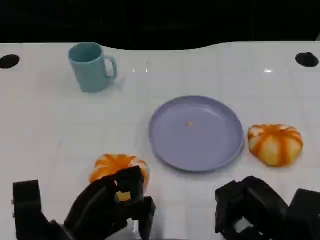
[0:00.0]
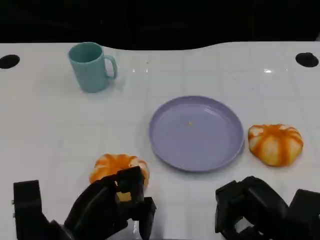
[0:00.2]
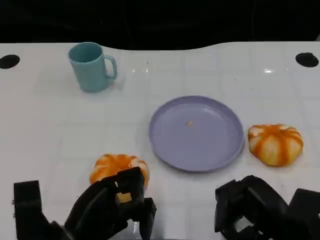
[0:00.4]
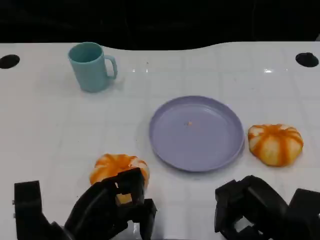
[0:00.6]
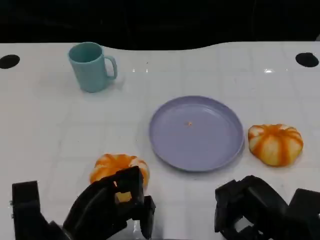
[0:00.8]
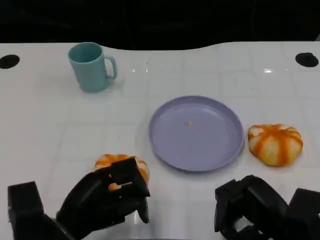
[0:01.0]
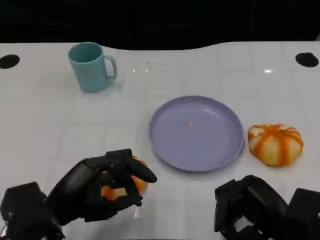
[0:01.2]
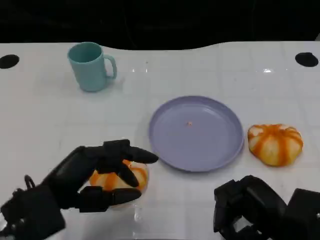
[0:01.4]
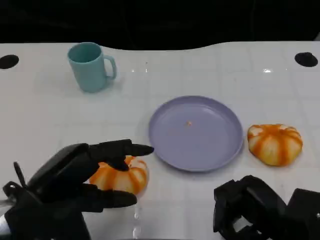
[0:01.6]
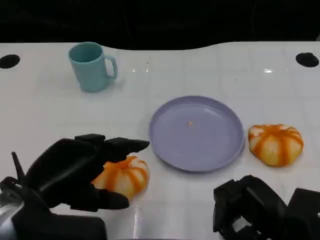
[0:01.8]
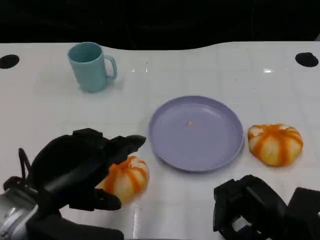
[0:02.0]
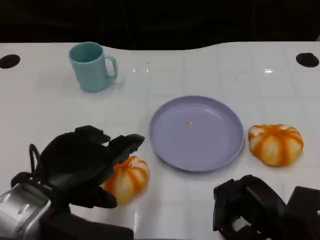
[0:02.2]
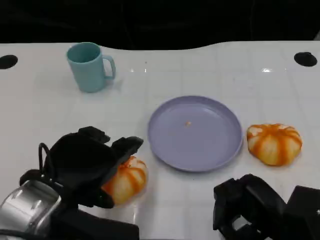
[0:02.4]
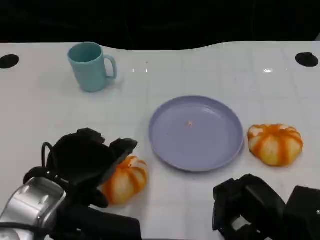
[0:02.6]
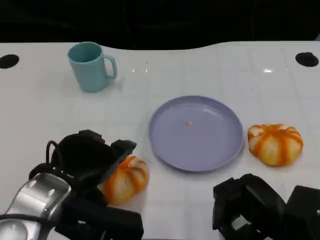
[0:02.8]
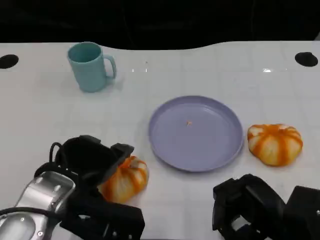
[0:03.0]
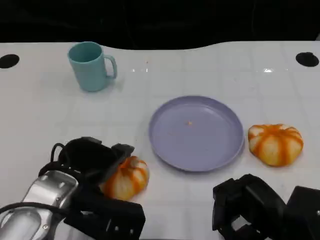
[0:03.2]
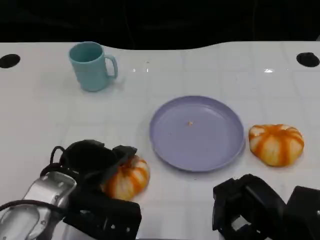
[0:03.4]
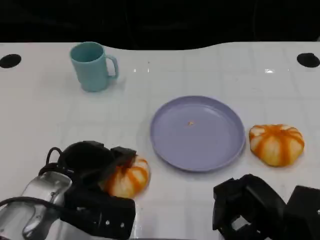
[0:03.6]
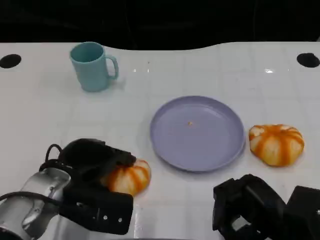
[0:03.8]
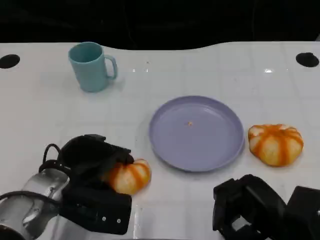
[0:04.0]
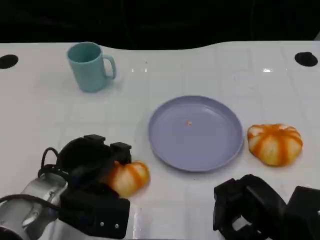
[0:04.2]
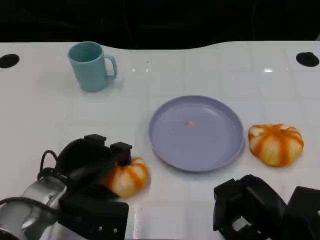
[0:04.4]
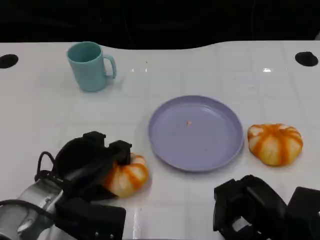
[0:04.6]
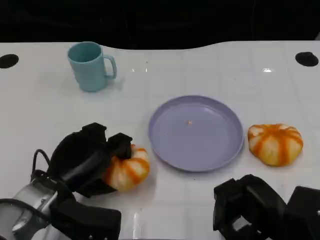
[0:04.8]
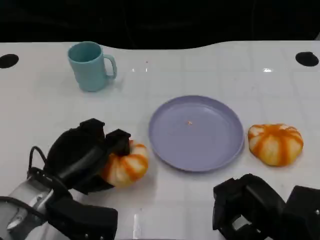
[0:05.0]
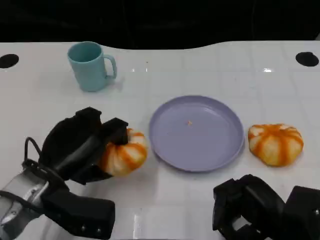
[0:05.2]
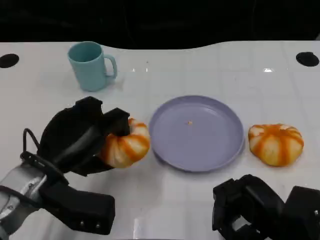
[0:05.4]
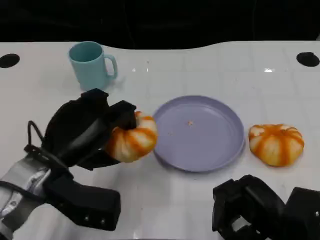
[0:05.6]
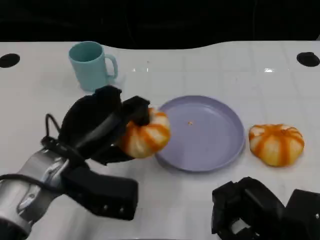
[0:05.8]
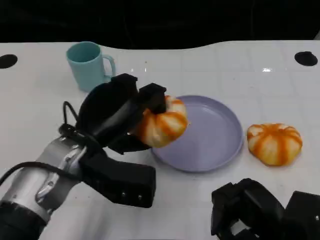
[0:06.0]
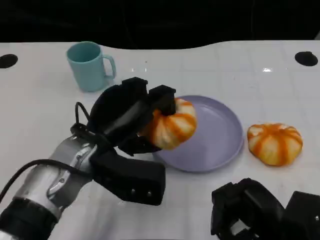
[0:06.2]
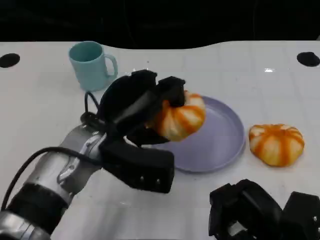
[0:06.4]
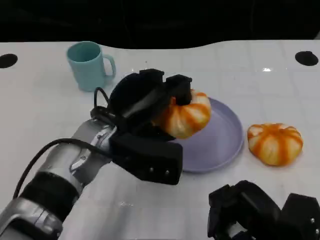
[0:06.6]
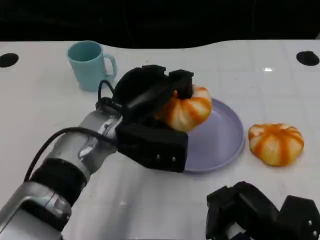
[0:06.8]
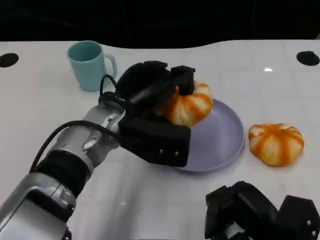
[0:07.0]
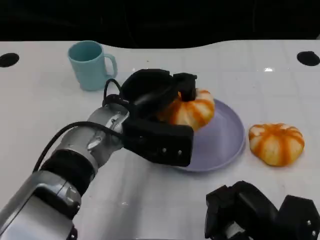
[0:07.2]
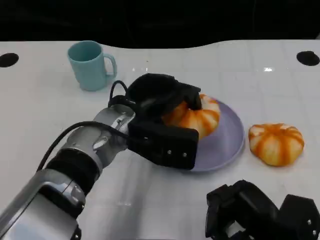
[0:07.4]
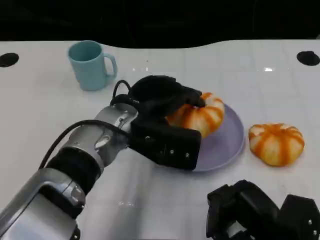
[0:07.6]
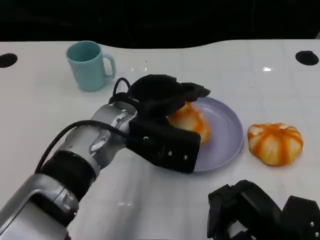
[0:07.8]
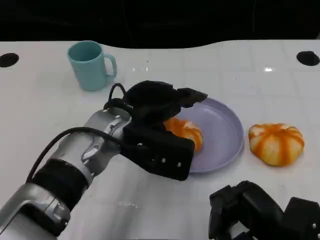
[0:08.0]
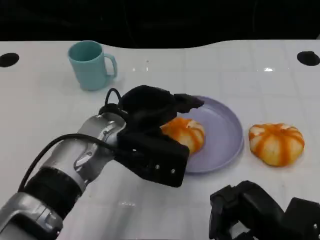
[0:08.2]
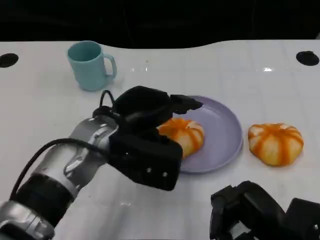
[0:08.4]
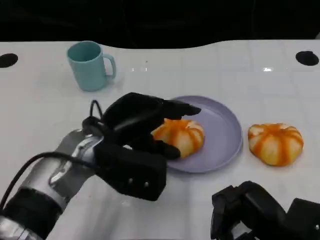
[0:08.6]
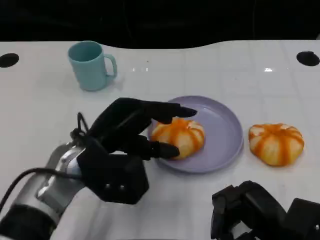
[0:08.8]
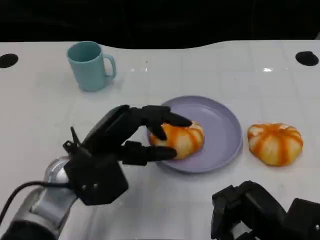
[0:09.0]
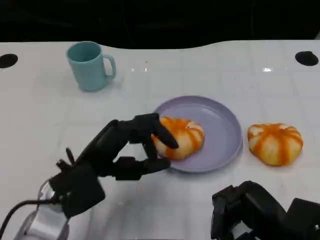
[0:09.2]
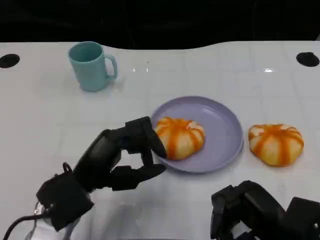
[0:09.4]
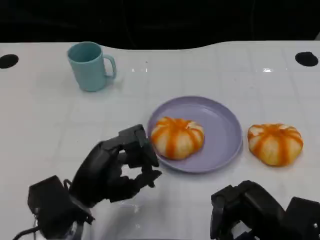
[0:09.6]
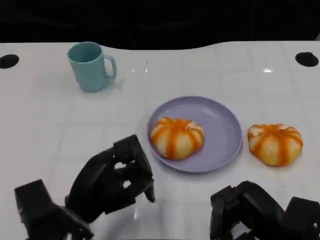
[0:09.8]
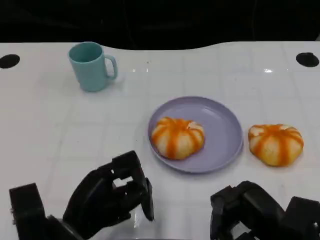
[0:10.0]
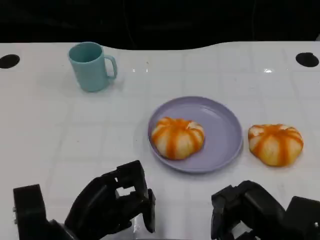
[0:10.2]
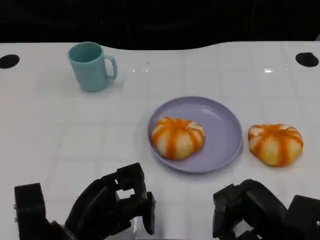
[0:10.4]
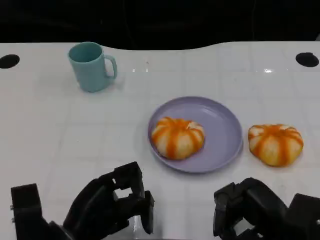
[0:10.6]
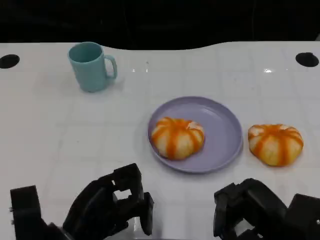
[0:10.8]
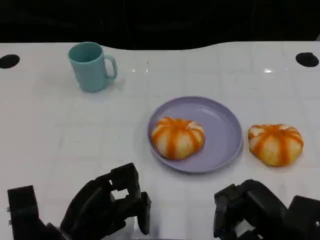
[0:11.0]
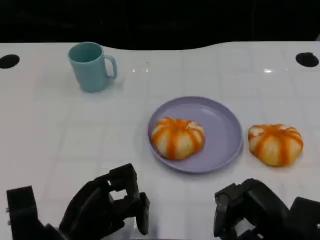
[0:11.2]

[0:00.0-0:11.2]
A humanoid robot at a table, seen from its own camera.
Task of the whole recording: Grasp the bread from the table and place it into the plate.
0:00.0 to 0:01.6: The left hand heads upward, covering some 10 cm.
0:01.6 to 0:03.2: The left hand shifts by roughly 5 cm.
0:04.8 to 0:06.4: The left hand heads to the right and upward, covering roughly 10 cm.
0:08.0 to 0:09.6: The left hand heads backward, to the left and downward, covering some 15 cm.

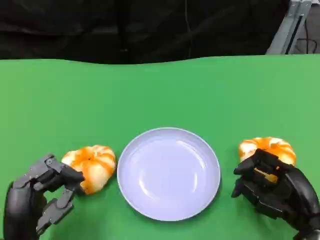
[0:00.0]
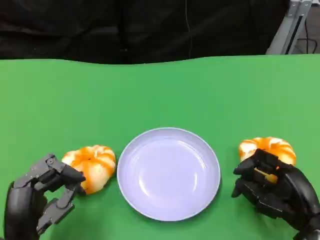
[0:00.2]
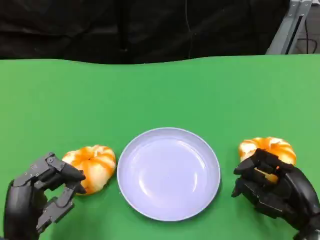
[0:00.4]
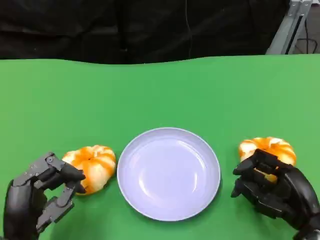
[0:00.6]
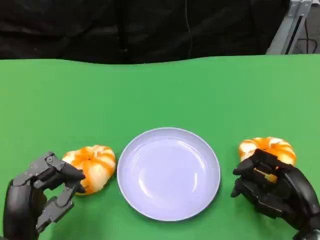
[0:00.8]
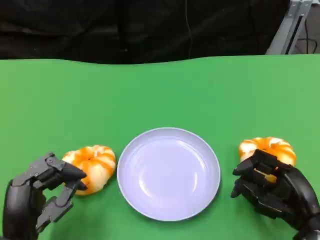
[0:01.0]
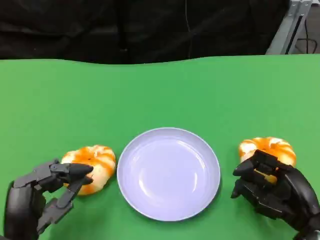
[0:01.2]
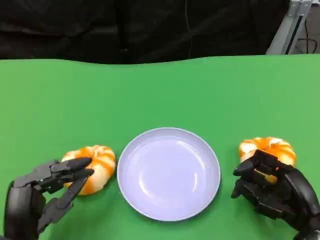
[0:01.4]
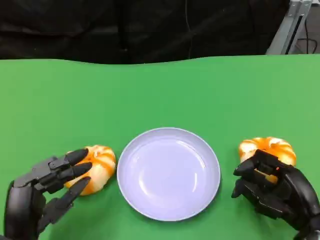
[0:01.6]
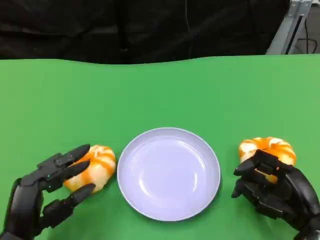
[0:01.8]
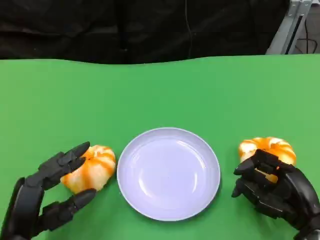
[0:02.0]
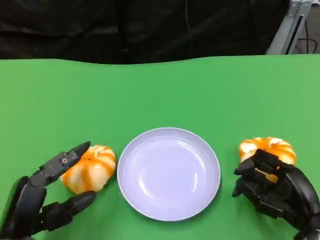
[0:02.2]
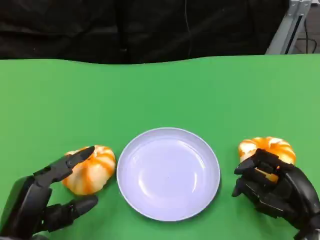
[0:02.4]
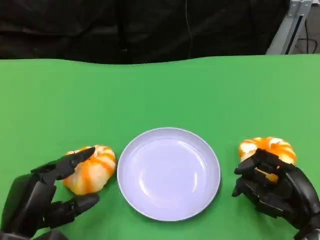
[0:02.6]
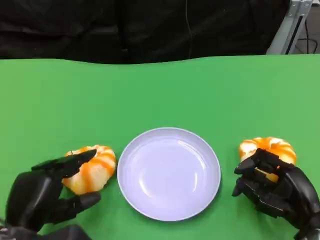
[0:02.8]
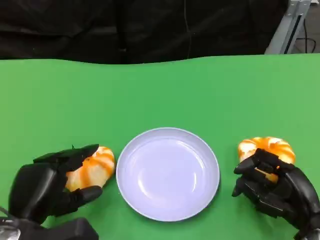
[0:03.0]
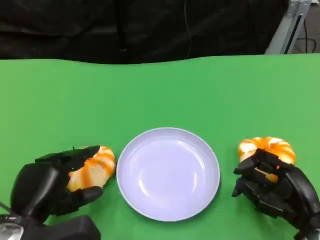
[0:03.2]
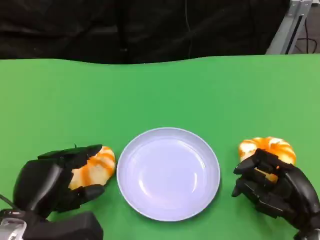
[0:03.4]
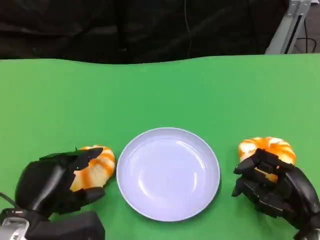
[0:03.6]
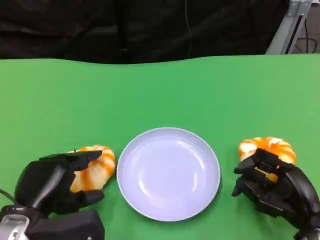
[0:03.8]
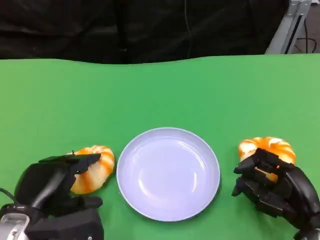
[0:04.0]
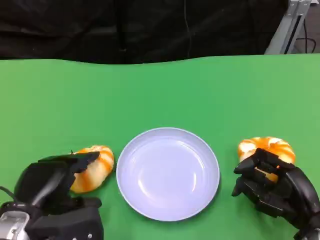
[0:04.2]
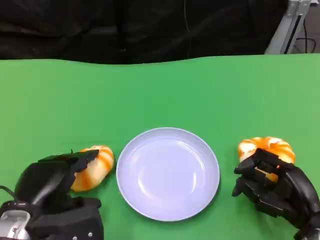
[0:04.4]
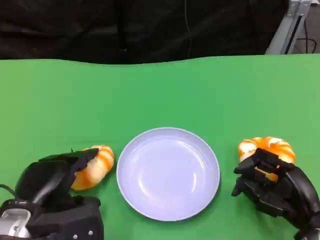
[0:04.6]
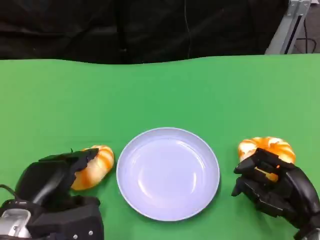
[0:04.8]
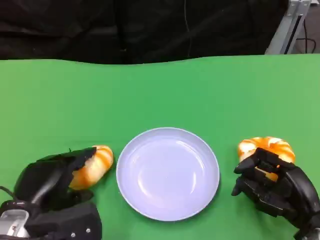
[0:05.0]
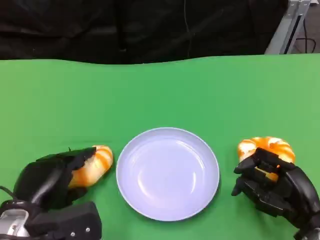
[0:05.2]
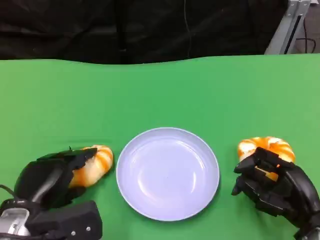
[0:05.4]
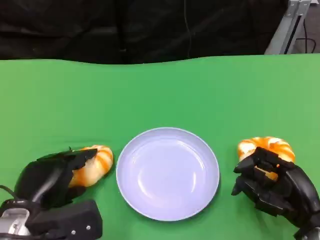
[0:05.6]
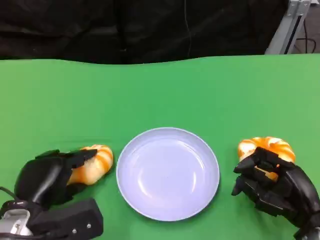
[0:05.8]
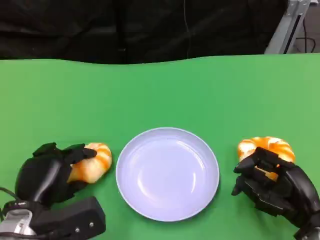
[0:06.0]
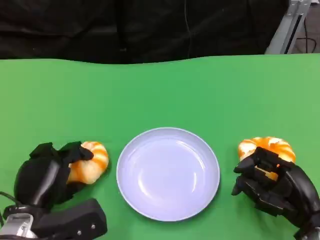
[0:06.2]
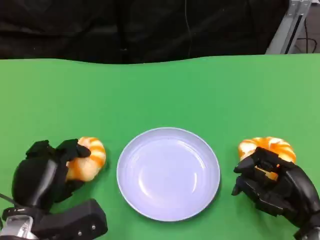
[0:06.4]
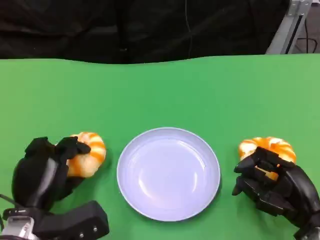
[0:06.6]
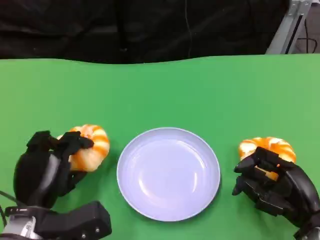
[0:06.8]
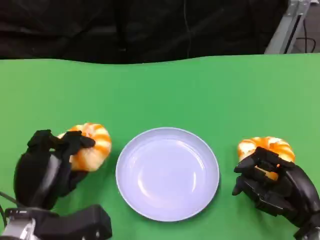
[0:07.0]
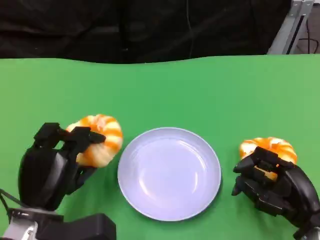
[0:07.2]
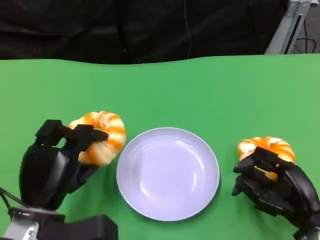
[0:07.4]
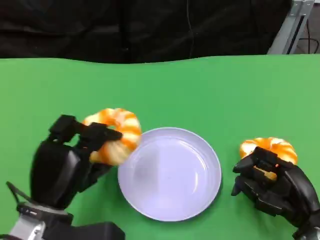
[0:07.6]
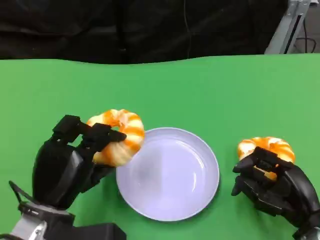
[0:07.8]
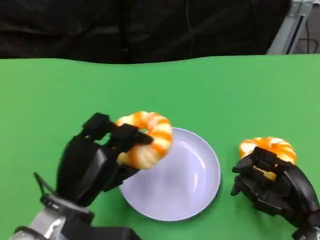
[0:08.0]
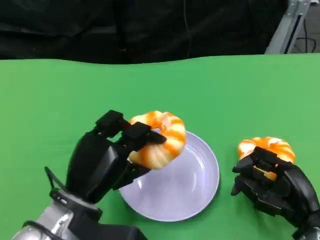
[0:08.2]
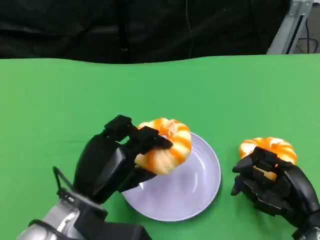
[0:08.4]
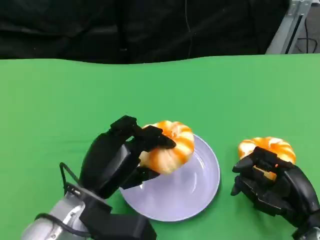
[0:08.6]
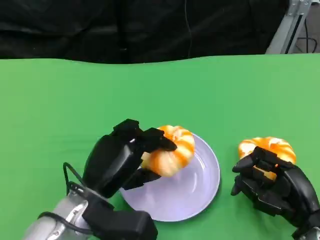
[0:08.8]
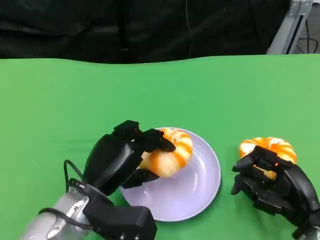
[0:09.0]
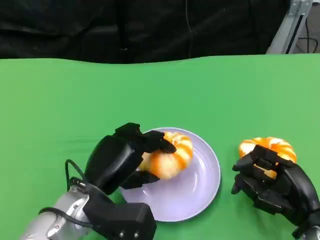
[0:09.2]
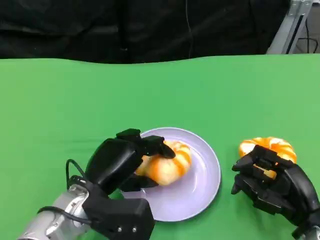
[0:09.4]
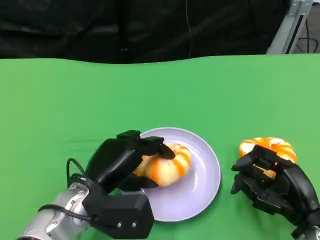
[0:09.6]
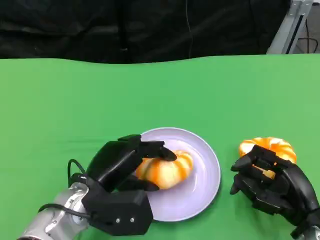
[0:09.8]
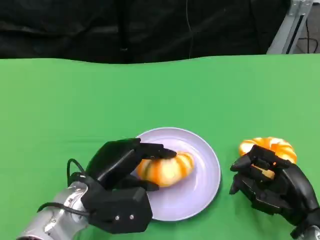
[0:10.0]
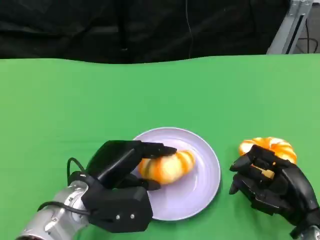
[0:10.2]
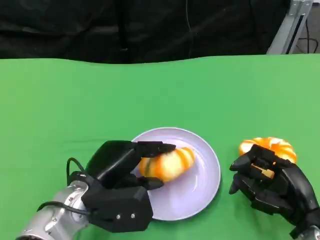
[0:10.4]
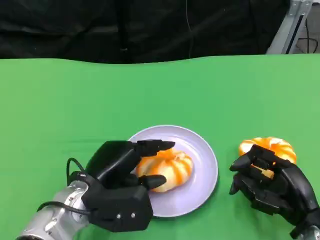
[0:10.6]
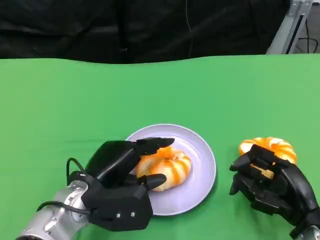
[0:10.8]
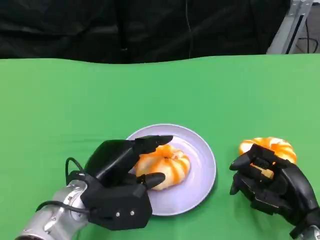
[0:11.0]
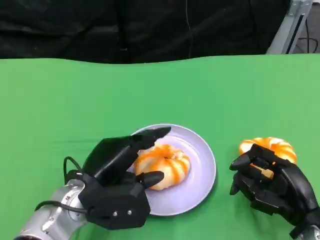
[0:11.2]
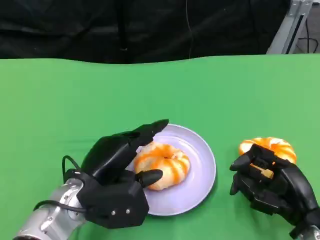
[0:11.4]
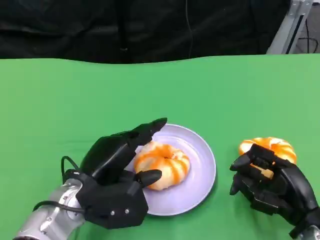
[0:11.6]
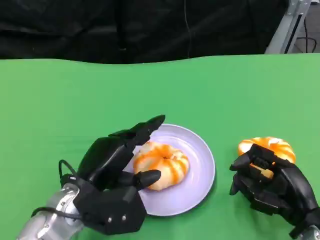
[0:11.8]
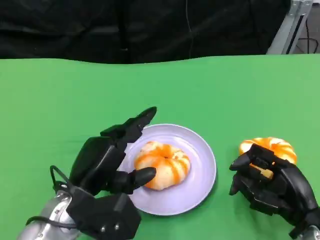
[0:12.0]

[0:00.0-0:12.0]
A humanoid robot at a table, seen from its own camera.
Task of the whole recording: Grasp the bread from the table and place it into the plate.
0:00.0 to 0:01.6: Both hands stay about where they are.
0:03.0 to 0:06.0: The hands make only small movements.
0:07.6 to 0:09.0: The left hand goes roughly 5 cm to the right.
0:09.0 to 0:12.0: The hands move only a little.
